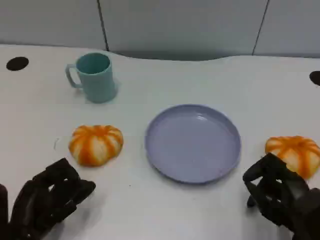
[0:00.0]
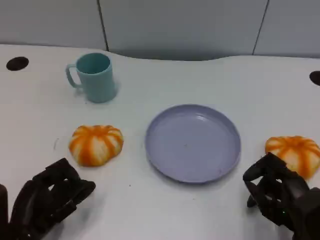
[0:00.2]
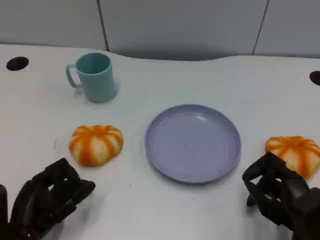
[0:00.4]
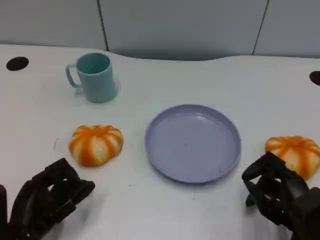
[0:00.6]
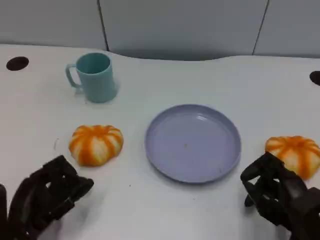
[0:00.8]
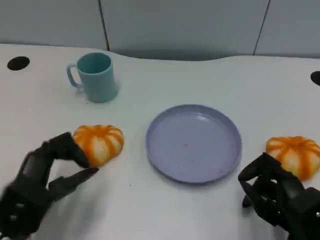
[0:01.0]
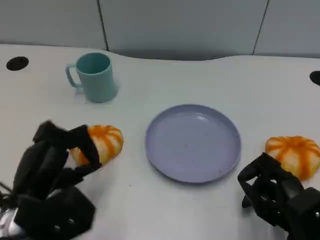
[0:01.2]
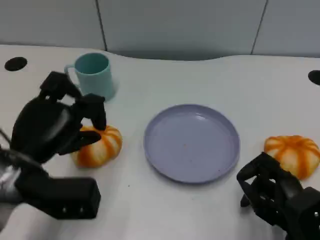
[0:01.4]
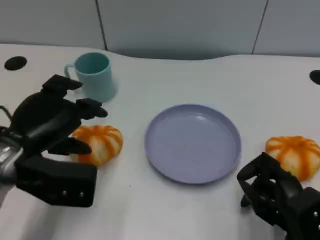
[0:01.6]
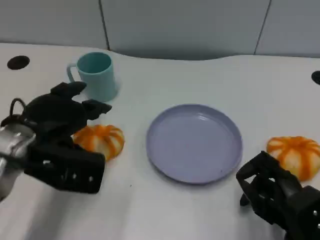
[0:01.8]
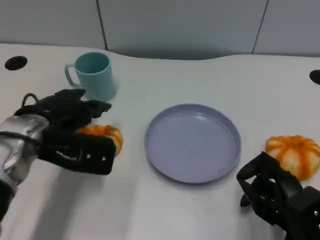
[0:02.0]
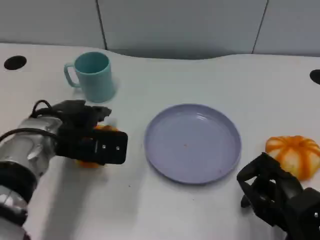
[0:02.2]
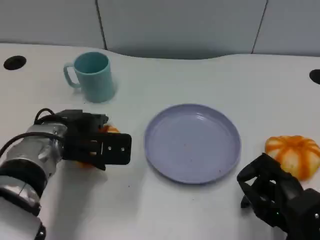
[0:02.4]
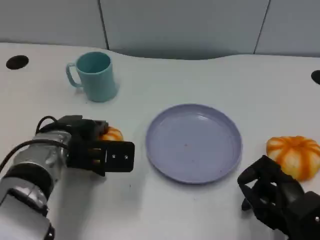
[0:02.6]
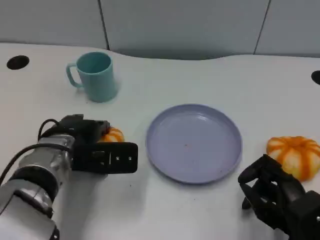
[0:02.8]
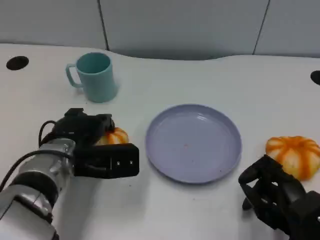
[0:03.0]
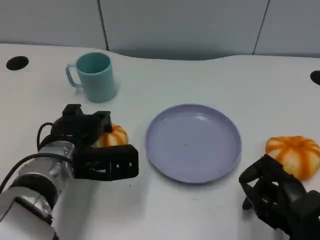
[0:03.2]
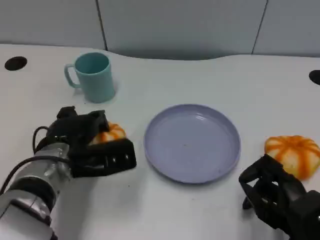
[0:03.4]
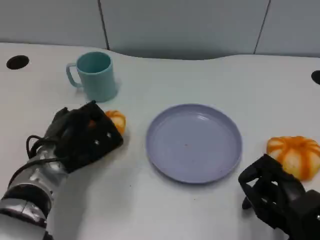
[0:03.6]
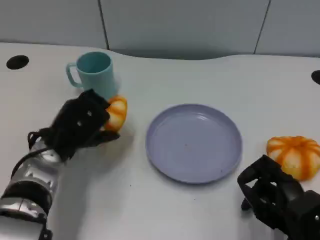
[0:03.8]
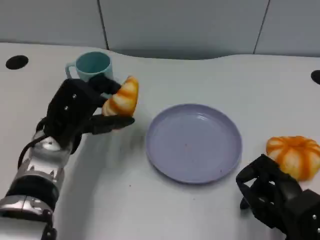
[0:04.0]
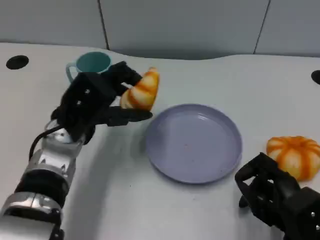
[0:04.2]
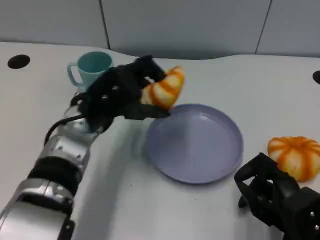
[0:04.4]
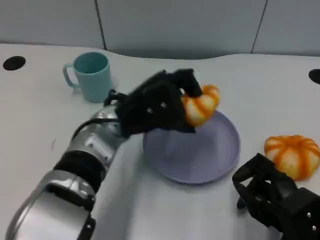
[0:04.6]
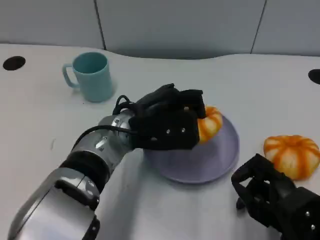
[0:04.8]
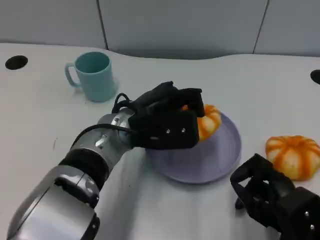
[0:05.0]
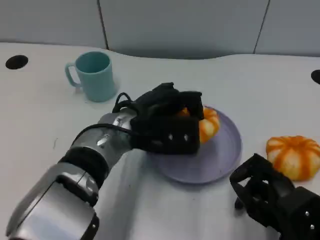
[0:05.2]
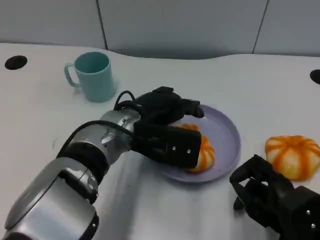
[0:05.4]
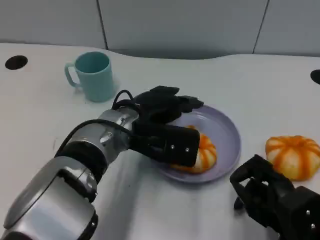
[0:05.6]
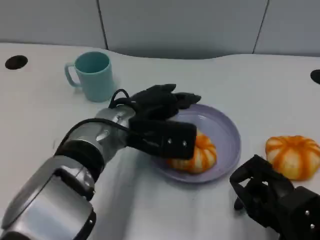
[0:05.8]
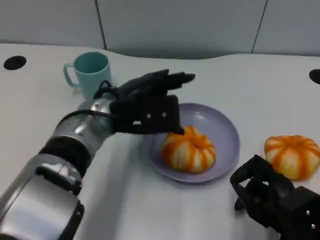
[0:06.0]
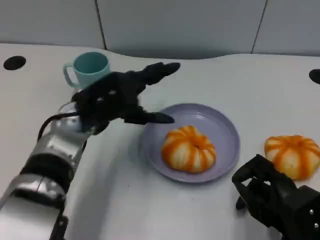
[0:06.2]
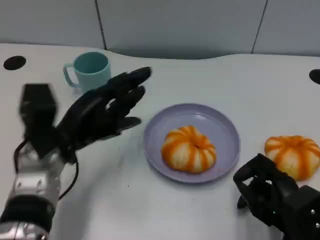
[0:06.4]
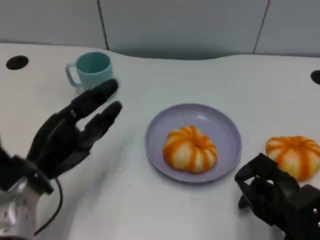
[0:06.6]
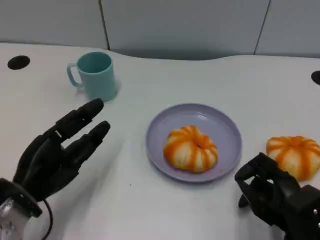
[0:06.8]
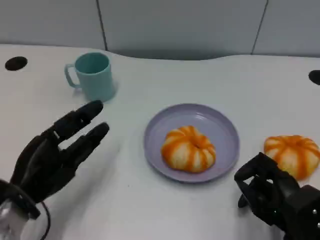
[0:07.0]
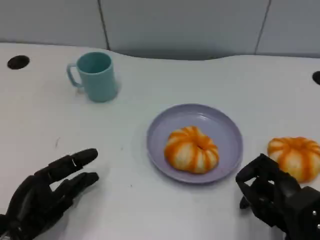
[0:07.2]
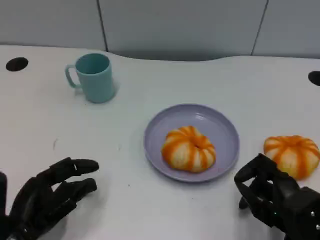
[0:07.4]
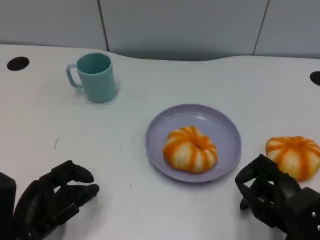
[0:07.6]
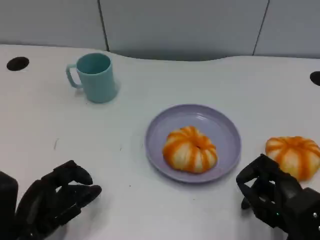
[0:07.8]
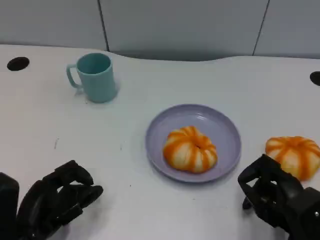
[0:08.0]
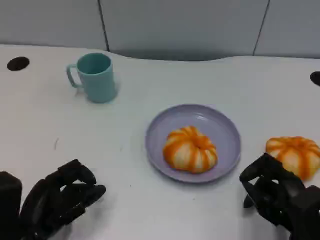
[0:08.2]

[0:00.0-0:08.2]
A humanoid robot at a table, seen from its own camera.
Task of the whole recording: Grasp the bread from the table and place it into the plate.
0:00.0 to 0:01.6: The left hand travels upward and forward by about 15 cm.
0:01.6 to 0:03.2: The left hand travels downward and to the right by approximately 10 cm.
0:03.2 to 0:05.0: The left hand moves to the right and upward, roughly 10 cm.
0:05.0 to 0:06.6: The left hand is displaced to the left and backward by about 15 cm.
0:06.6 to 0:08.2: The left hand heads backward, covering approximately 5 cm.

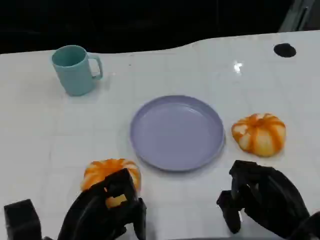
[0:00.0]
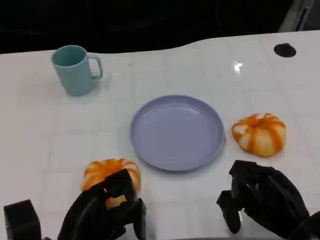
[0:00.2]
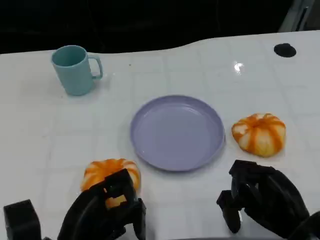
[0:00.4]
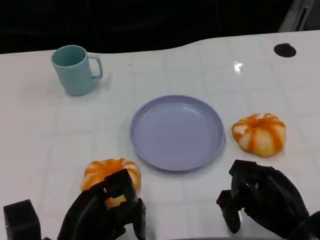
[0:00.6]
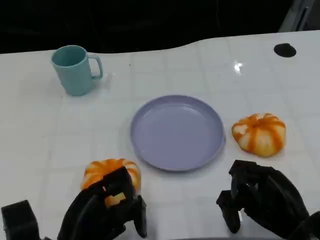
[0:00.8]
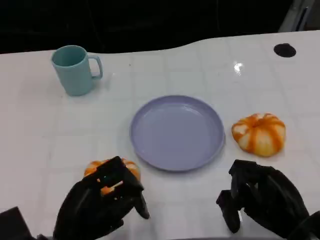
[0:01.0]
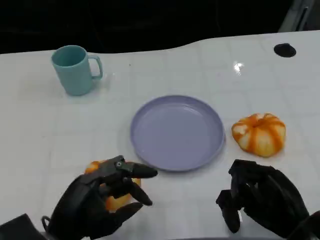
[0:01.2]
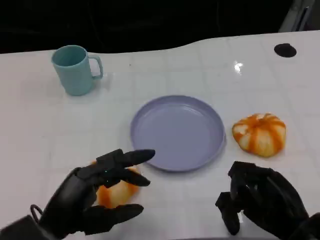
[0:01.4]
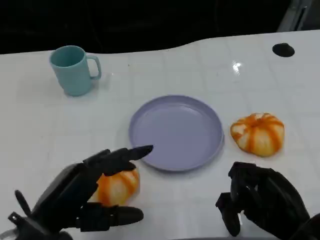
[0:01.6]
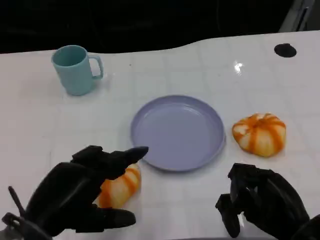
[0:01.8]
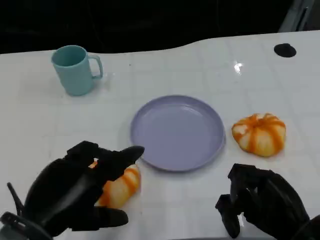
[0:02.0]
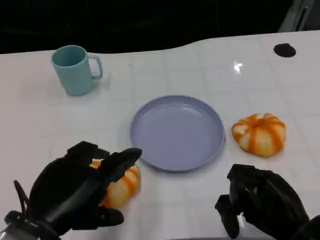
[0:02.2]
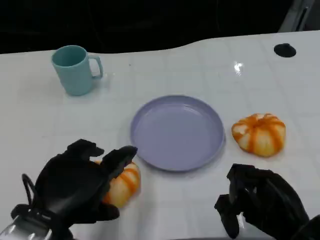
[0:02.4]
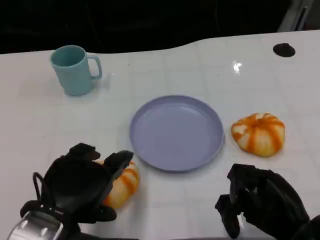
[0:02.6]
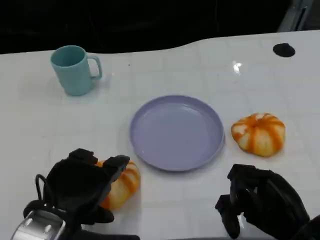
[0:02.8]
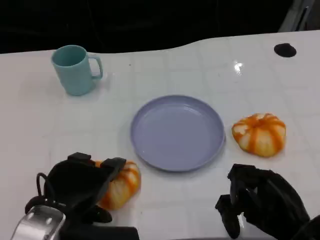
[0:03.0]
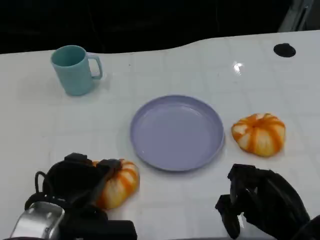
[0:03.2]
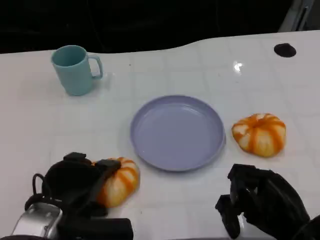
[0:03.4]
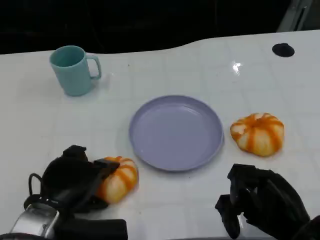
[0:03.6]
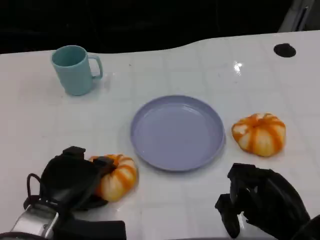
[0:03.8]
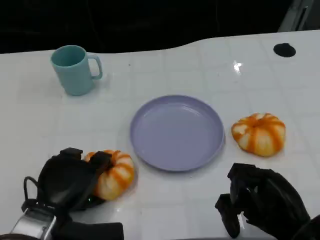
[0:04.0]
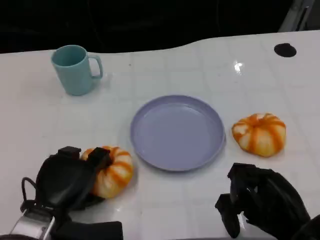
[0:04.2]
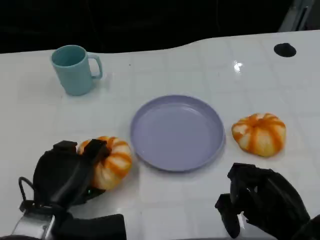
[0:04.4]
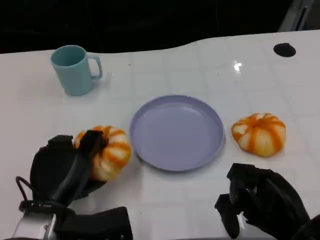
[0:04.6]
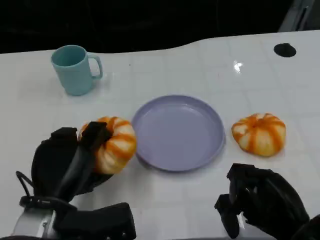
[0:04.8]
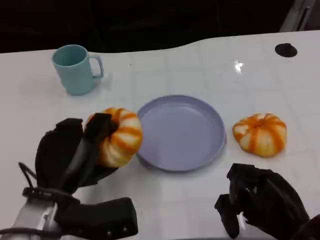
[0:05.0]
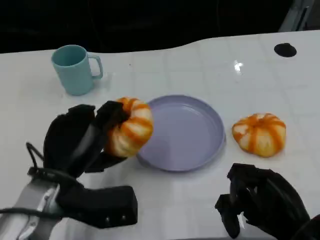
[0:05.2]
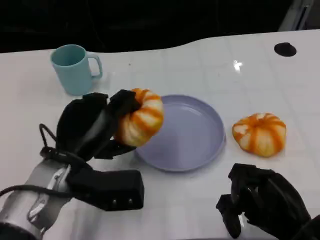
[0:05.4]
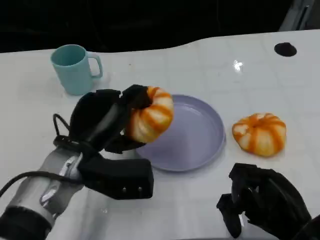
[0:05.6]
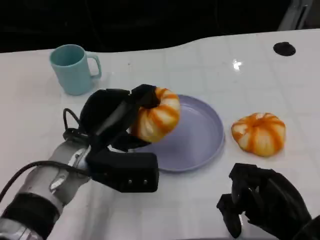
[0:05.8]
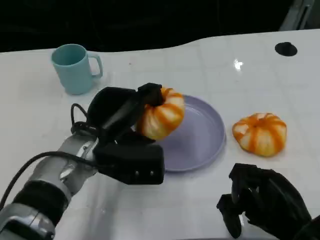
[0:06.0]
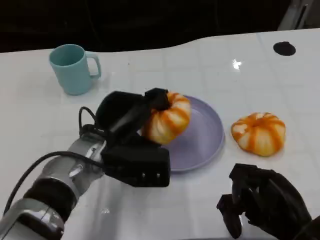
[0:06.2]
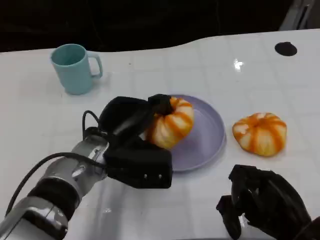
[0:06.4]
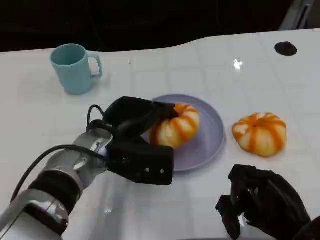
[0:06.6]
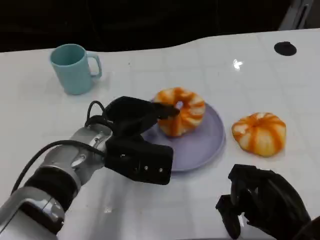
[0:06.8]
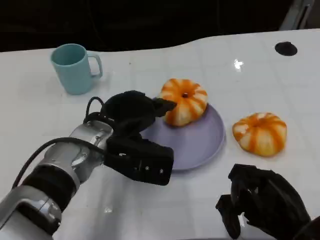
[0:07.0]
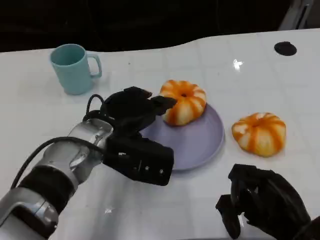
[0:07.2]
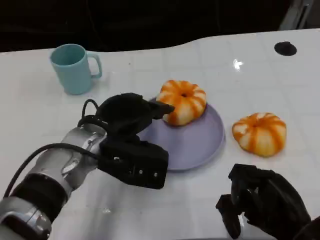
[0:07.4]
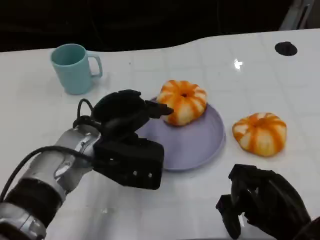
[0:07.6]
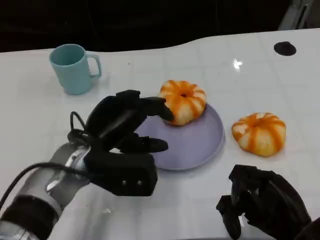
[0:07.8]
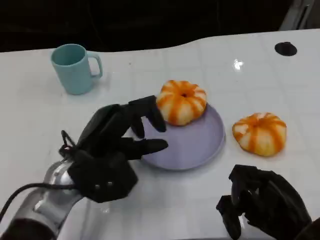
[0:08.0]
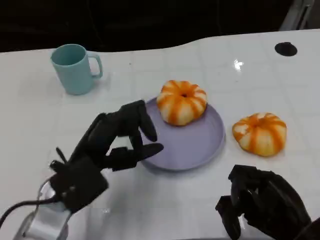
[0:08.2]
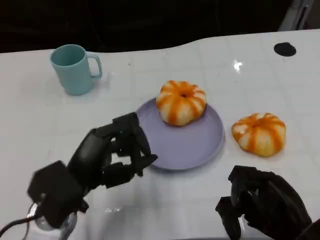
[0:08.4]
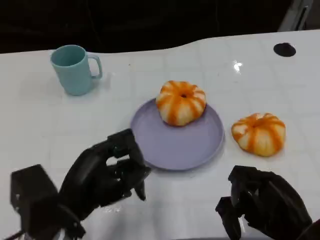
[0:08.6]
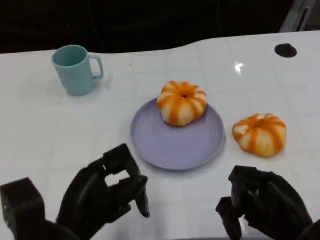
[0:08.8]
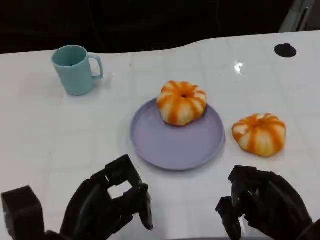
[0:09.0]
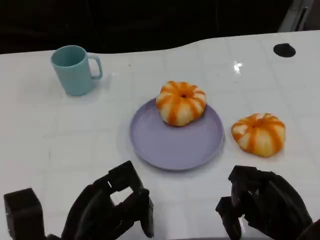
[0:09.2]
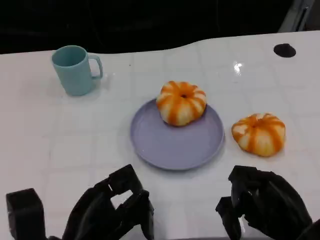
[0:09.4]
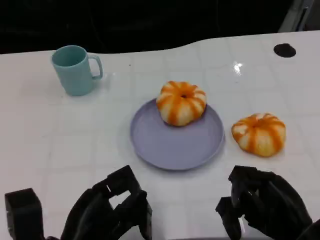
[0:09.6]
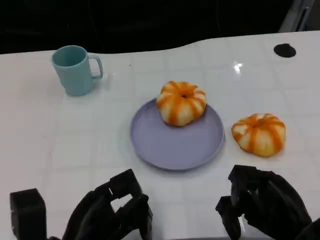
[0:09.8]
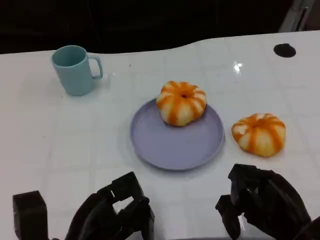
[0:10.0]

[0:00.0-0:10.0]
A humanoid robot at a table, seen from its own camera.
Task of the whole recording: Grasp the bread from the table and place it into the plate.
0:00.0 to 0:01.4: The left hand shifts by roughly 5 cm.
0:02.8 to 0:04.2: The left hand travels downward by about 5 cm.
0:04.2 to 0:05.8: The left hand moves forward, upward and to the right, approximately 10 cm.
0:07.2 to 0:08.6: The left hand travels backward and to the left by some 15 cm.

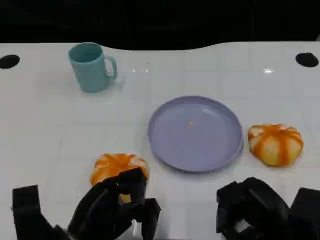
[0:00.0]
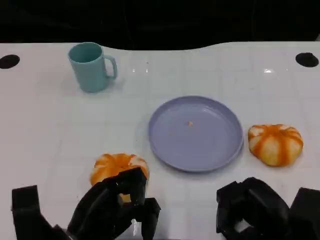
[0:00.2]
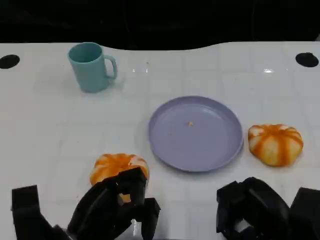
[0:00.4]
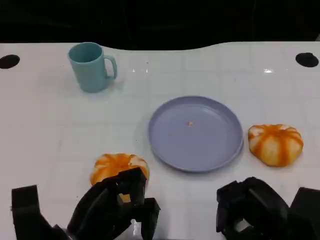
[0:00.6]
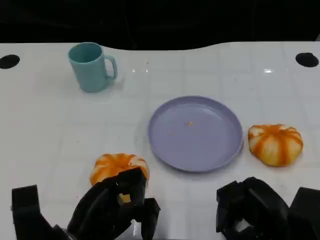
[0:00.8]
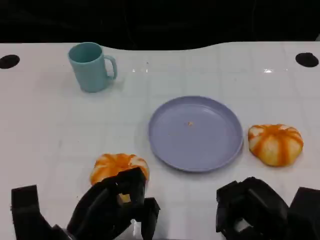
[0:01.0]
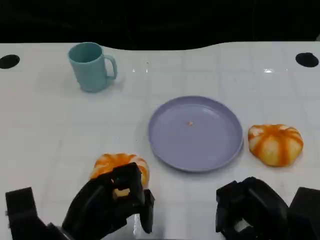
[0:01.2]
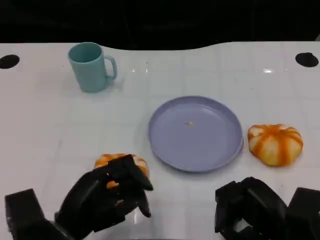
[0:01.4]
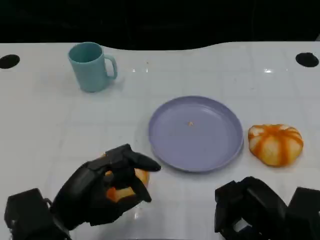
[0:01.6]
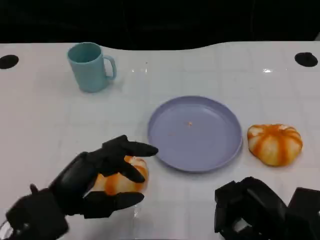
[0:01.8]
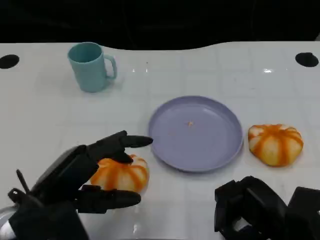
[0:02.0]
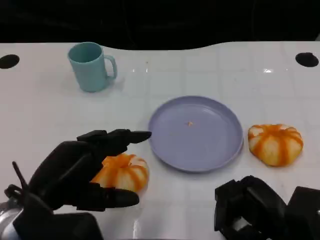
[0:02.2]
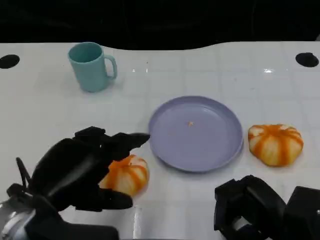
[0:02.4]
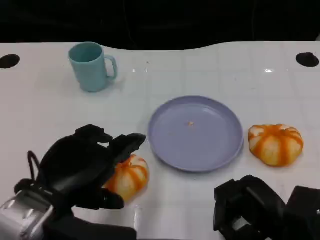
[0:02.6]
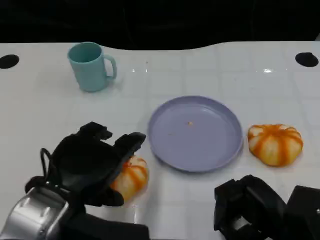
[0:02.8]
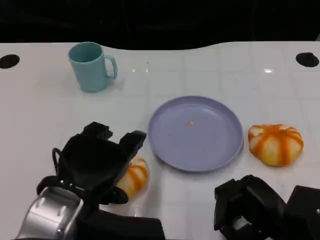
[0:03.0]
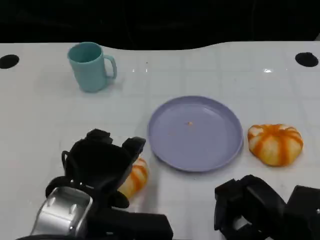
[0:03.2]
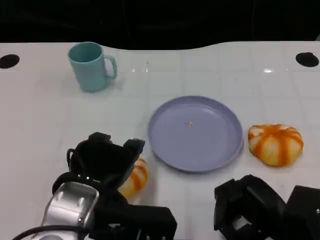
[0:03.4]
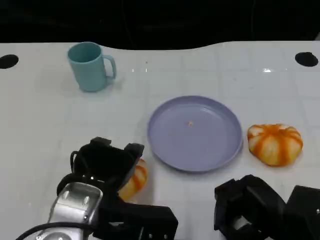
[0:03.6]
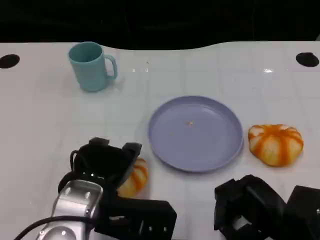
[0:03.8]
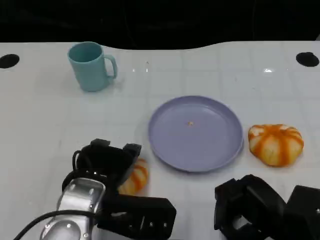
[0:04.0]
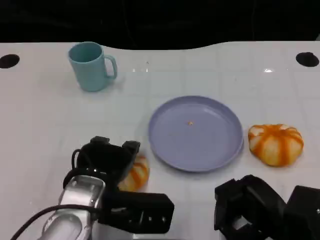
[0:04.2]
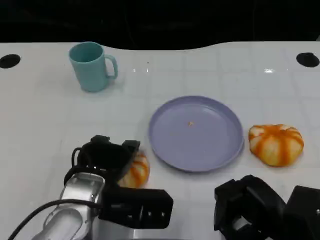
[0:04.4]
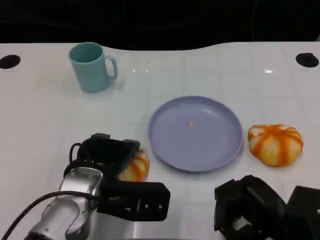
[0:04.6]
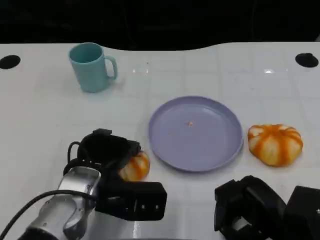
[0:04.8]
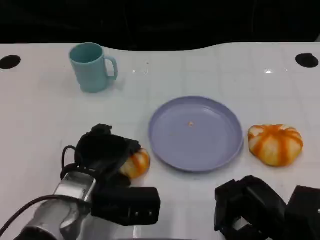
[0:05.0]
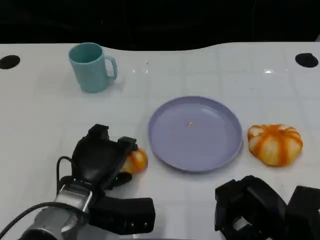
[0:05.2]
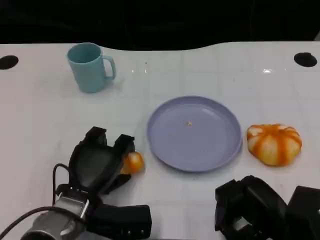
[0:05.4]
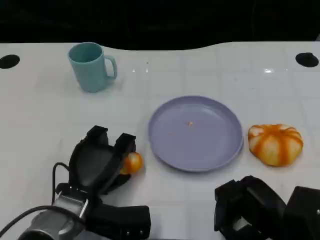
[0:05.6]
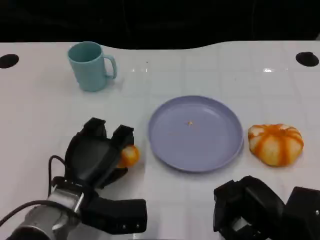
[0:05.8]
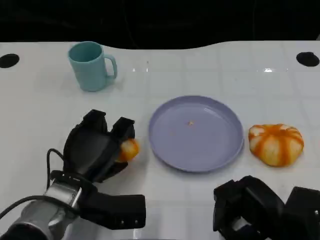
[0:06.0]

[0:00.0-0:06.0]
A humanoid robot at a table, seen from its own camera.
Task of the whole recording: Grasp the bread from the table and place it into the plate.
0:01.6 to 0:03.0: The left hand goes some 5 cm upward.
0:03.0 to 0:04.4: The left hand shifts some 10 cm downward and forward.
0:04.4 to 0:06.0: The left hand changes place by roughly 5 cm.
